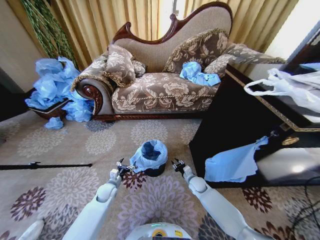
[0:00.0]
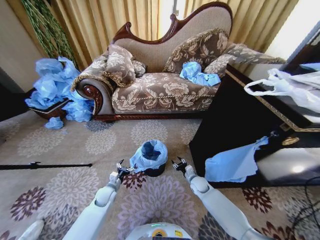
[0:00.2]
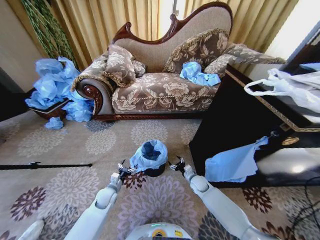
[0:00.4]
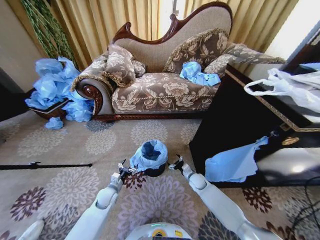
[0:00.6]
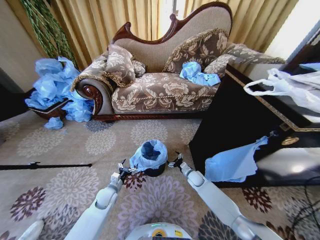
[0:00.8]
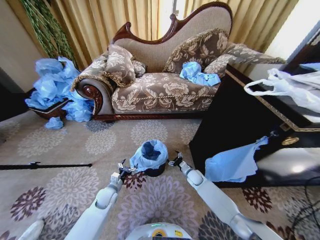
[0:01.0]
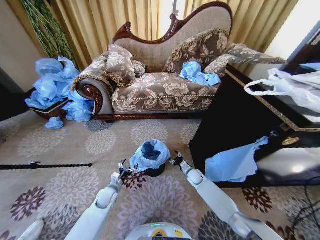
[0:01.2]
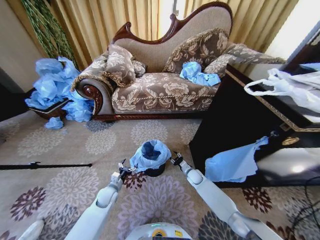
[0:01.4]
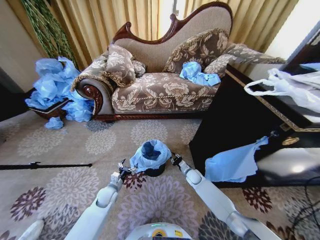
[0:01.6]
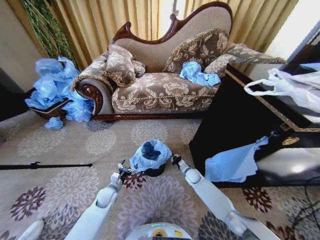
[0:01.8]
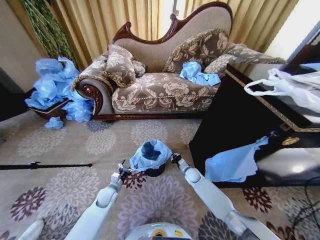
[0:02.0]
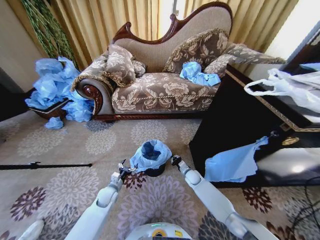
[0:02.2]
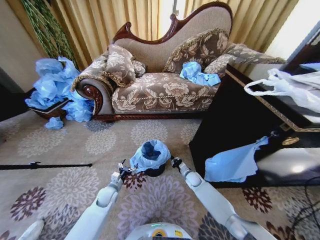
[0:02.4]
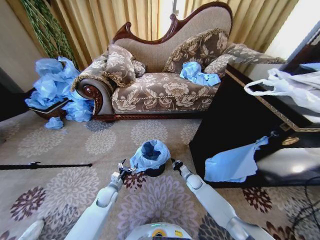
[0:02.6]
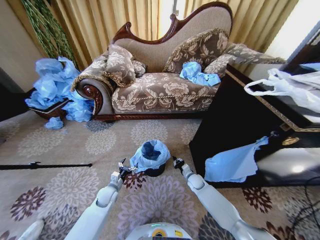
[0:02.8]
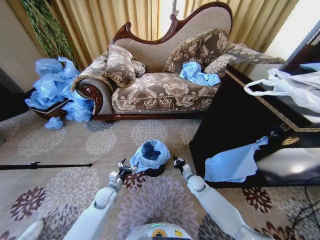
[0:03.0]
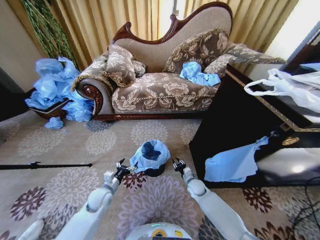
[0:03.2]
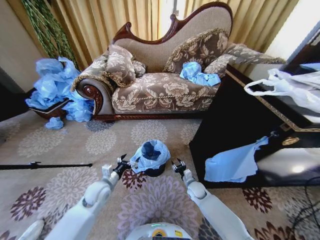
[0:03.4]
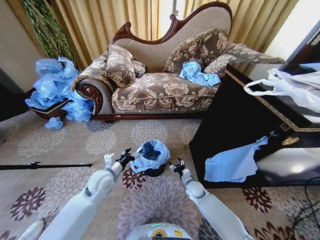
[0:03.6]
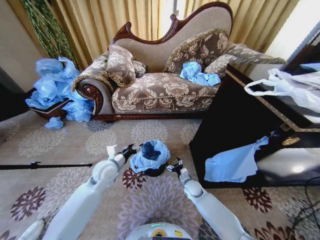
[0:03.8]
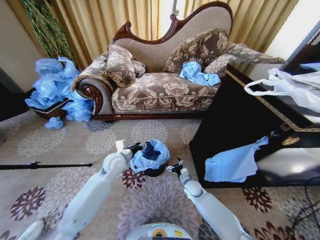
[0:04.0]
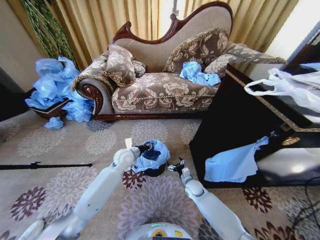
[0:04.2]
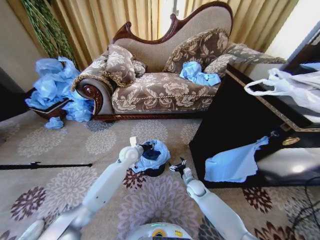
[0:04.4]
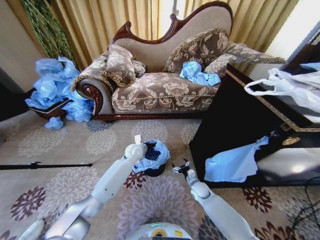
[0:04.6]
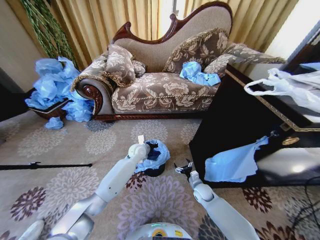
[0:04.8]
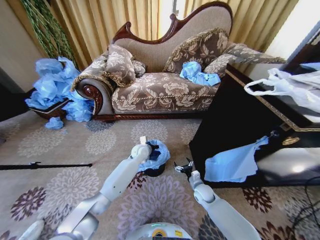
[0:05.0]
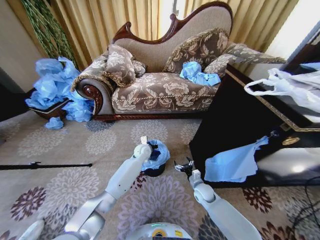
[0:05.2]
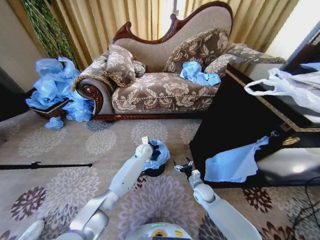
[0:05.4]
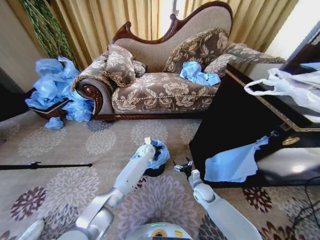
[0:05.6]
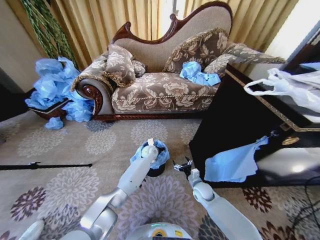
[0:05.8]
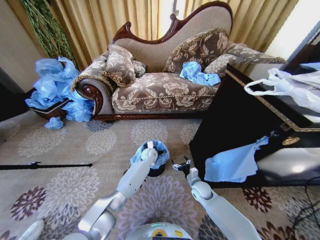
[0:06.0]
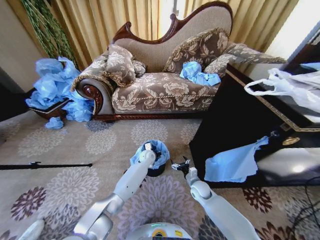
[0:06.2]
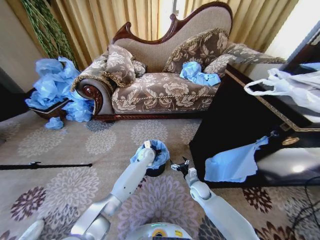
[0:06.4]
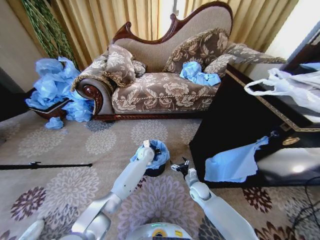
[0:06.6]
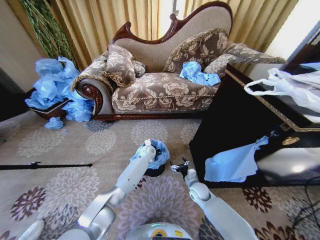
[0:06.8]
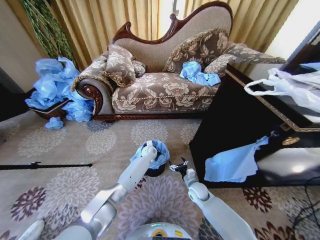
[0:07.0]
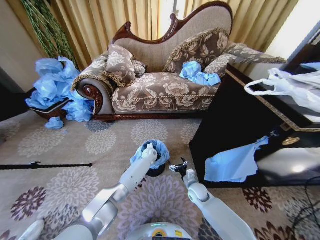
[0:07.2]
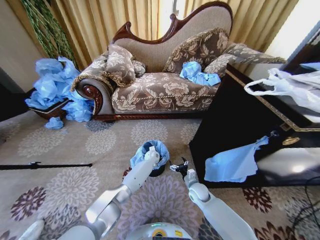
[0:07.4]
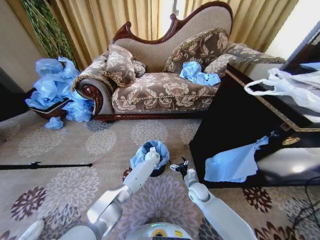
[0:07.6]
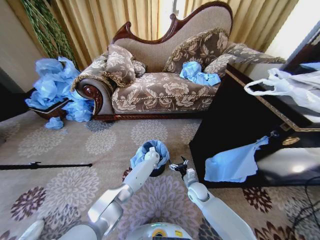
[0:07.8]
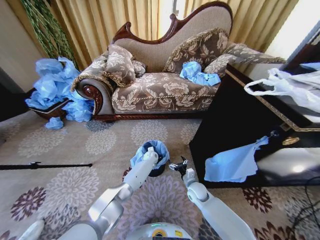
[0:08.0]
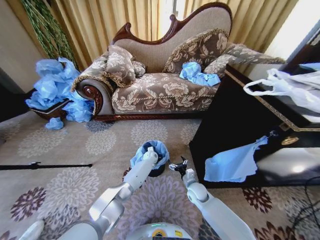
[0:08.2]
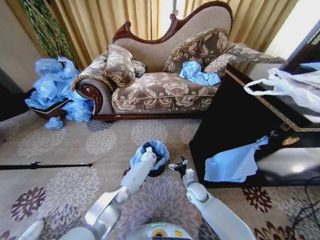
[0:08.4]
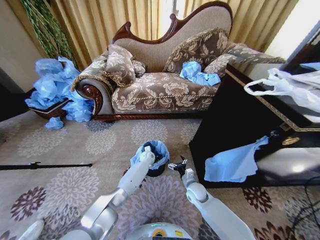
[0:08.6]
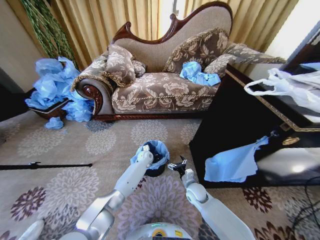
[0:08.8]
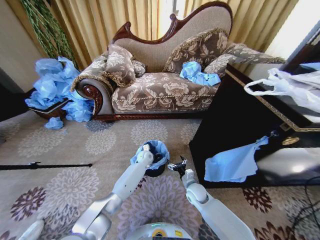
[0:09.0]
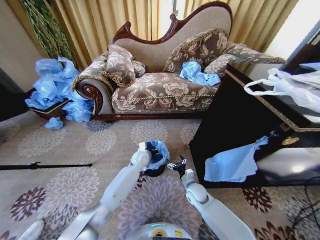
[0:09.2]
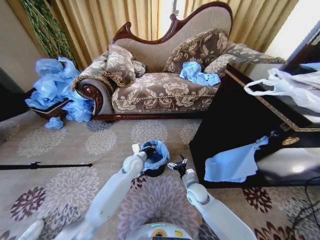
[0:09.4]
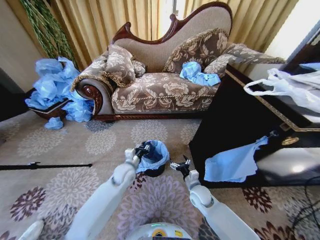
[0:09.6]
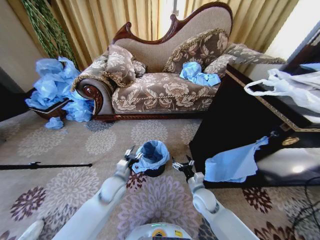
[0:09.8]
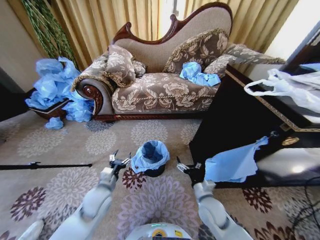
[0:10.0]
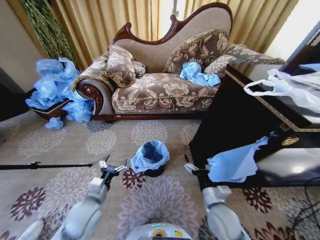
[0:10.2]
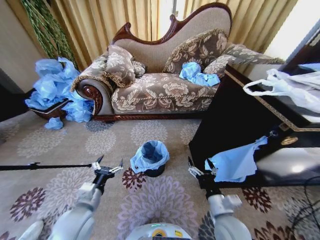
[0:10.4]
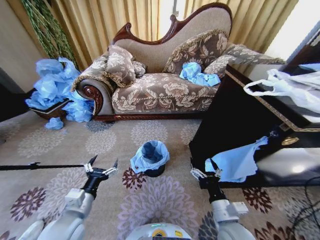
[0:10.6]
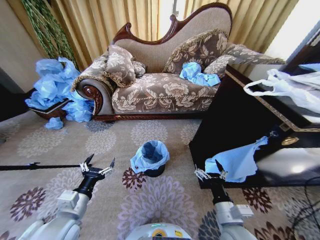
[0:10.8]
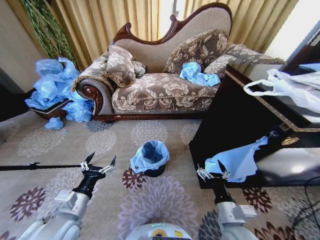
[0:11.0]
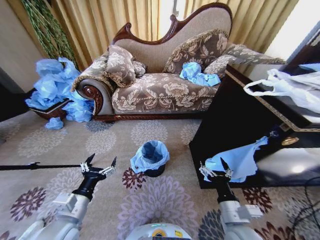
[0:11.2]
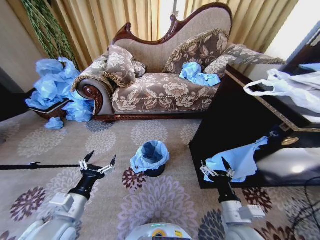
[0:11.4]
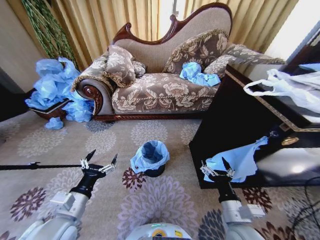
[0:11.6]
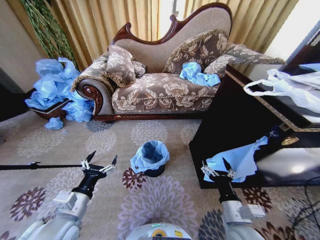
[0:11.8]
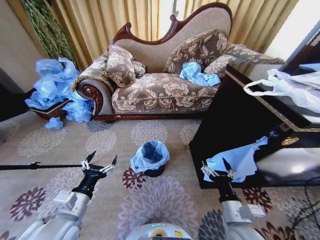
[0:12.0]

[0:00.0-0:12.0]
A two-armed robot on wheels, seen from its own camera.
Task of the whole recording: Place a garbage bag over the trash bin.
0:00.0 to 0:01.6: The right gripper changes place by roughly 5 cm, and opens and closes again.
0:01.6 to 0:03.0: The grippers move only a little.
0:03.0 to 0:04.4: The left gripper travels forward, upward and to the right by roughly 25 cm, and closes up. The right gripper opens up.
0:04.4 to 0:06.0: The left gripper moves to the right, downward and forward, about 15 cm.
0:06.0 to 0:07.6: The left gripper changes place by approximately 5 cm.
0:07.6 to 0:09.0: The left gripper changes place by some 5 cm.
0:09.0 to 0:10.4: The right gripper shifts about 20 cm backward and upward; the left gripper is displaced backward, to the left and upward by approximately 40 cm, and opens up.
0:10.4 to 0:12.0: The grippers make only small movements.
